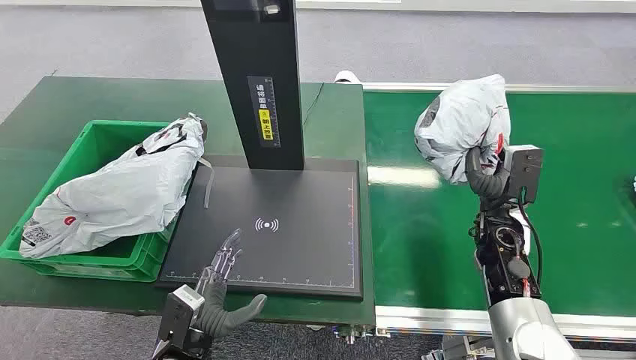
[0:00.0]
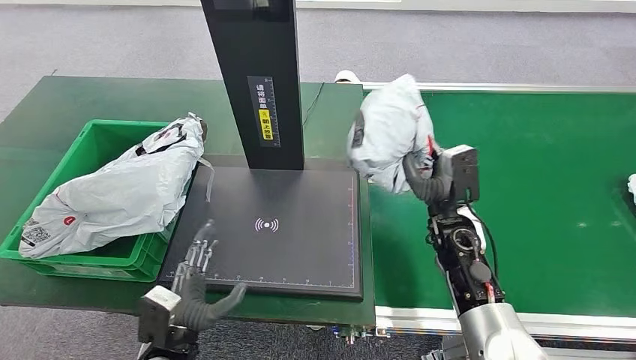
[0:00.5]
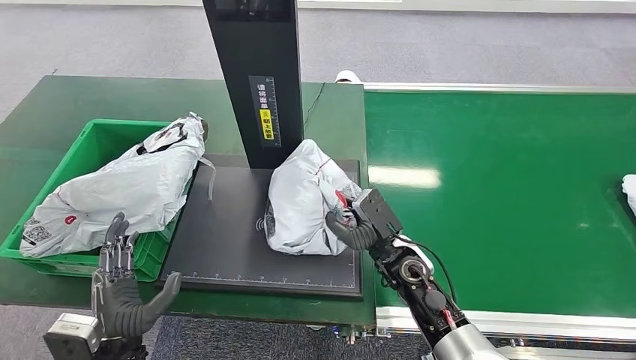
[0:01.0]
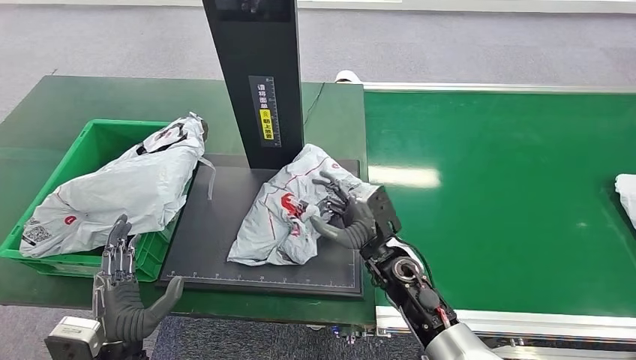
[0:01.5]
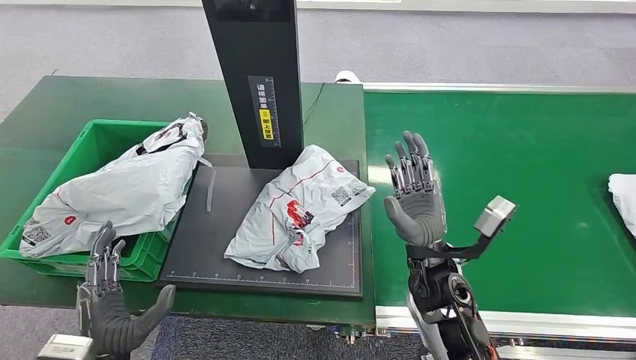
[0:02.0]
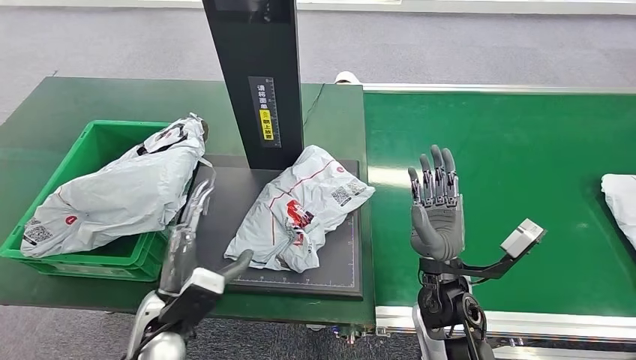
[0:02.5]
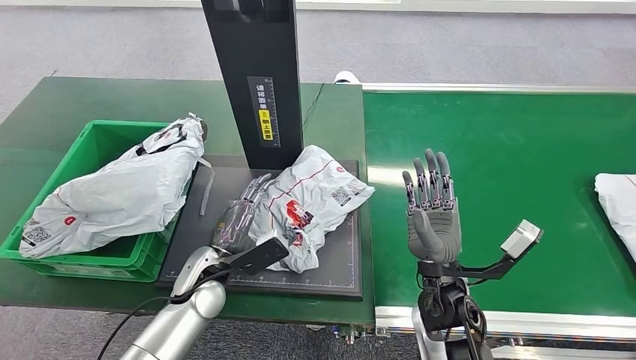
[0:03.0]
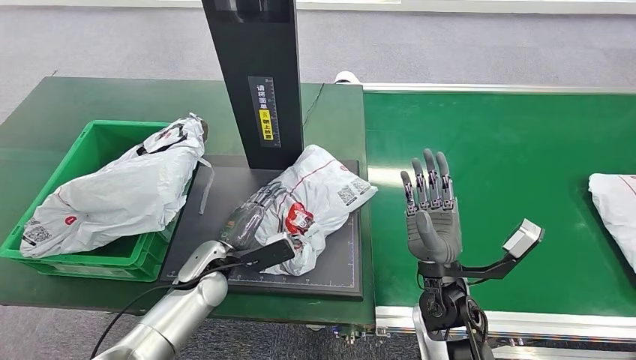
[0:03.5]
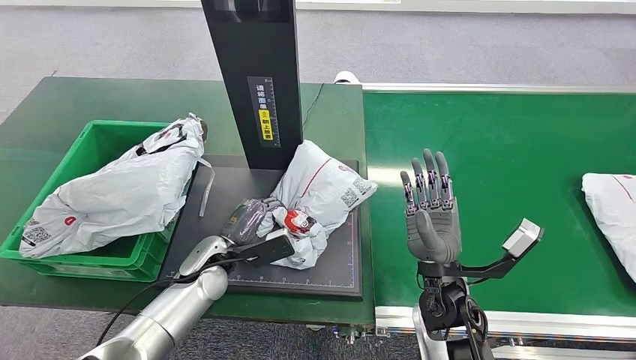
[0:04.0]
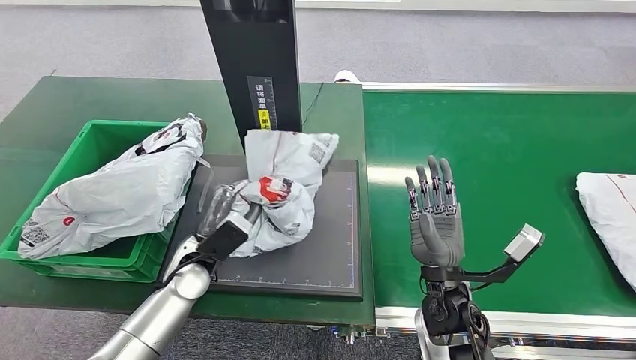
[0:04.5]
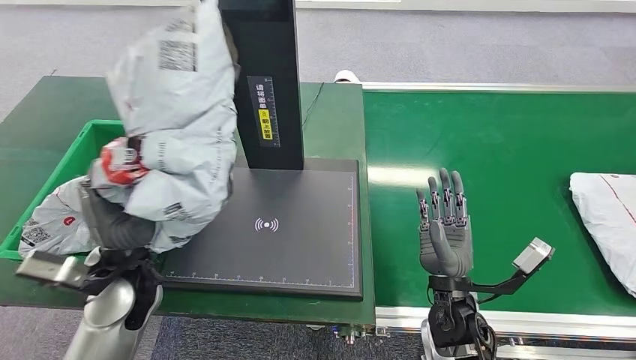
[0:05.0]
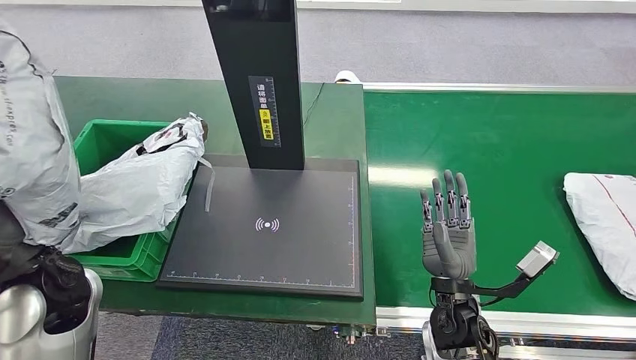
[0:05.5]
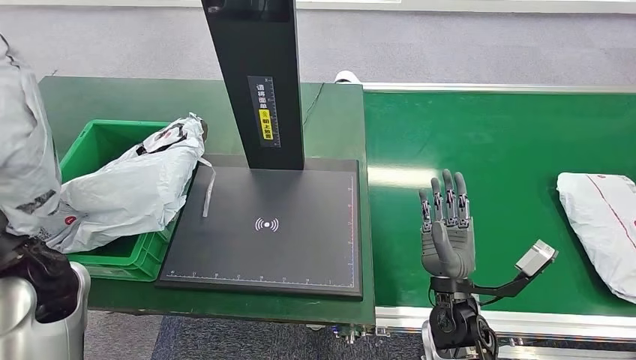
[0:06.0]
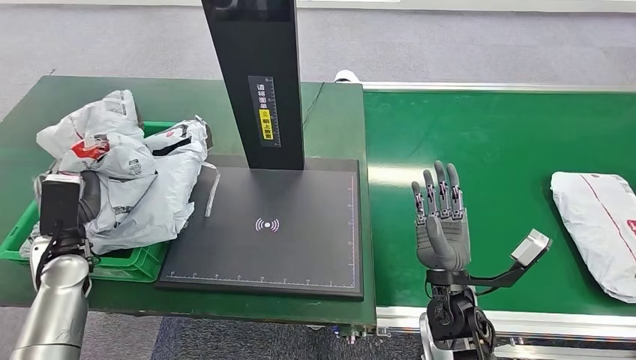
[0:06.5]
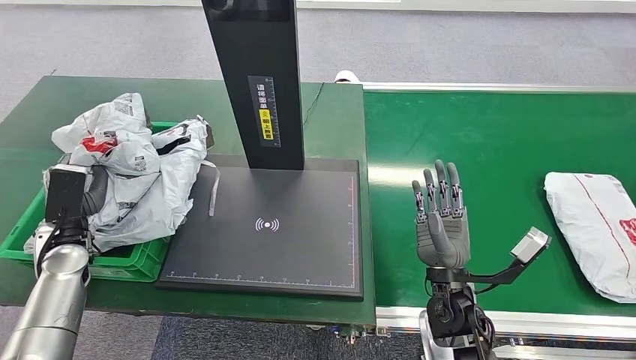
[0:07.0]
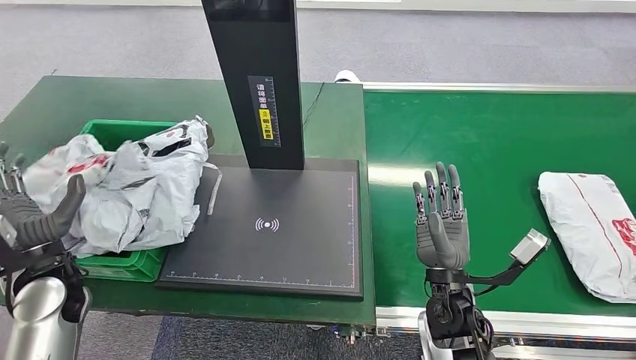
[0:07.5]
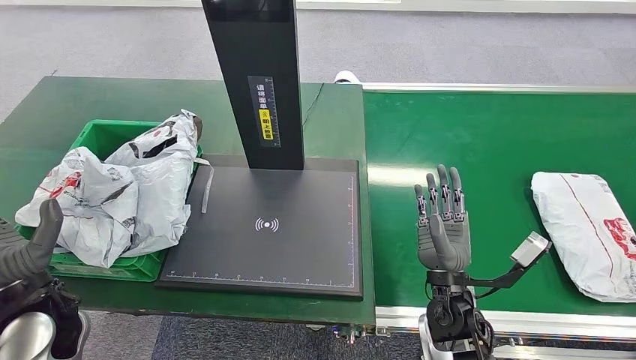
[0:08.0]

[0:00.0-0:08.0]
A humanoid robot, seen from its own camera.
Task of the whole recording: Weigh the package on the weighing device and place it in the left basket.
0:02.0 to 0:04.0: The left hand is displaced forward by approximately 20 cm.
0:06.0 to 0:08.0: The left hand moves downward, about 10 cm.

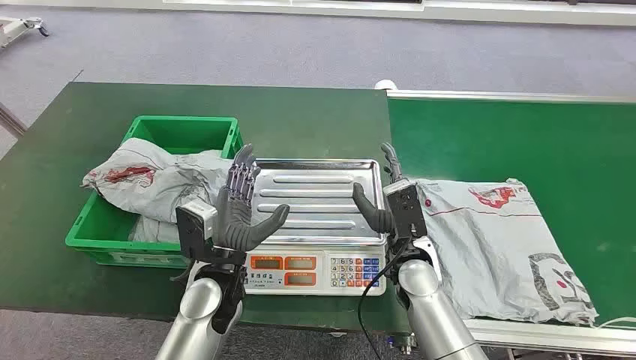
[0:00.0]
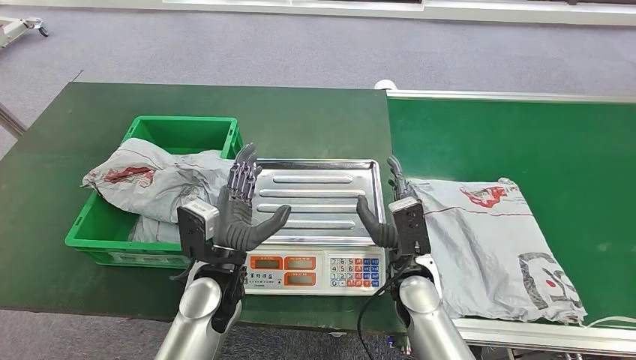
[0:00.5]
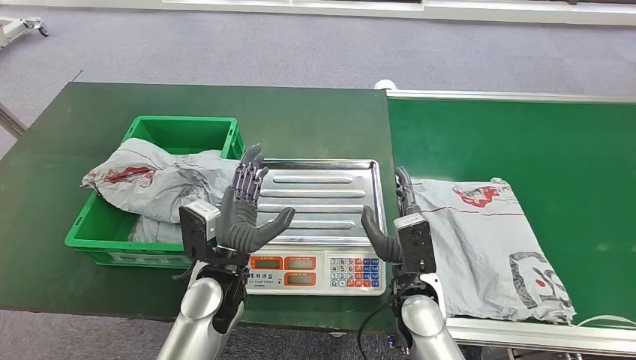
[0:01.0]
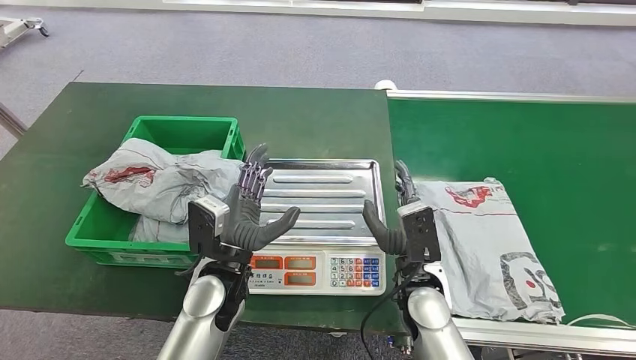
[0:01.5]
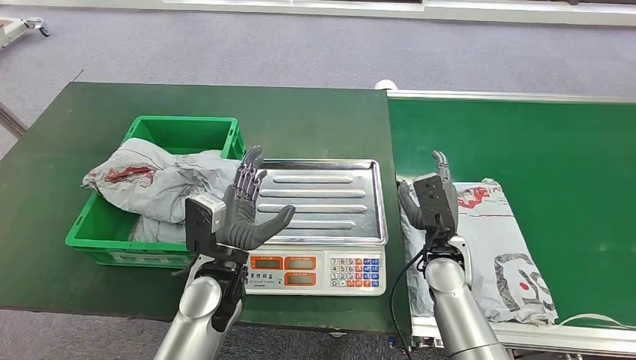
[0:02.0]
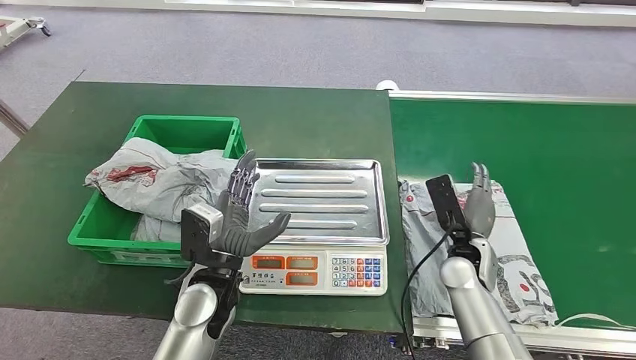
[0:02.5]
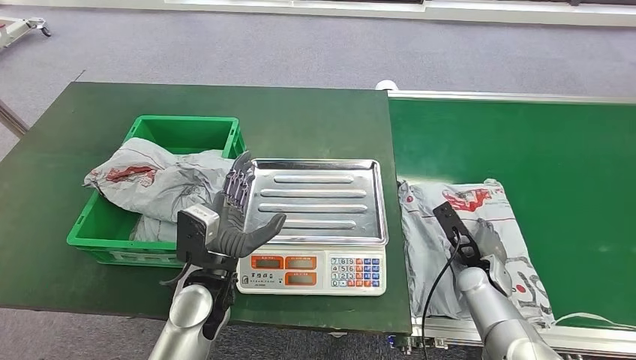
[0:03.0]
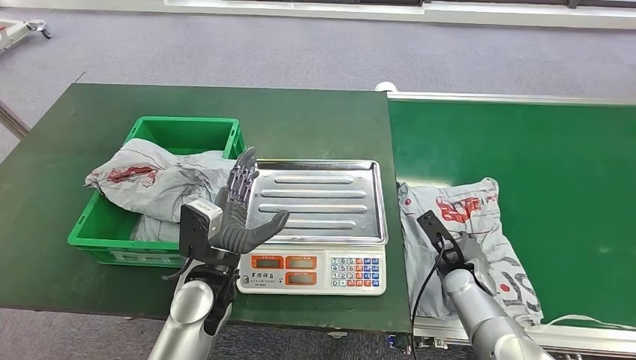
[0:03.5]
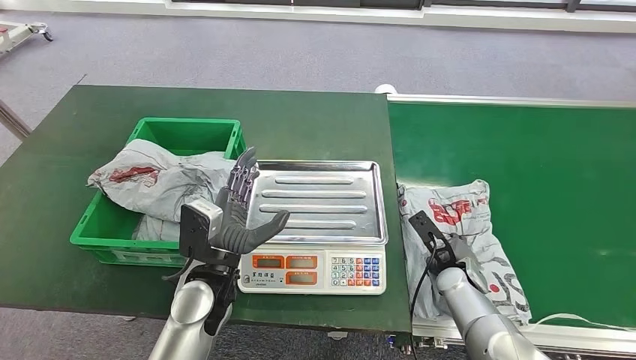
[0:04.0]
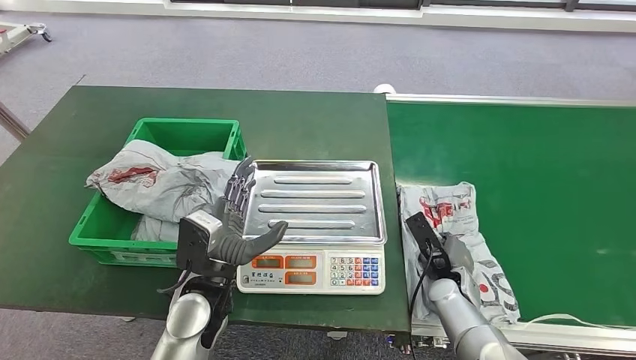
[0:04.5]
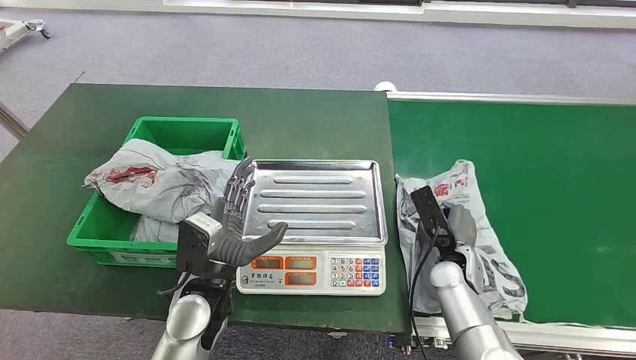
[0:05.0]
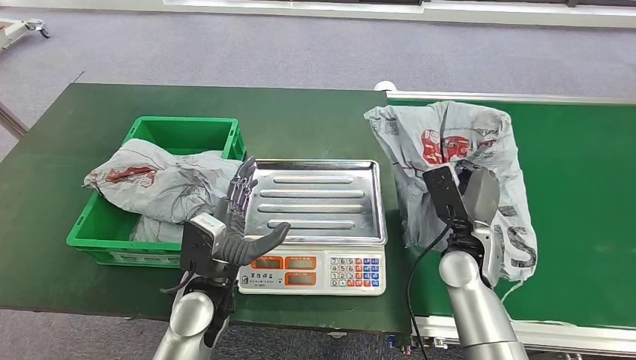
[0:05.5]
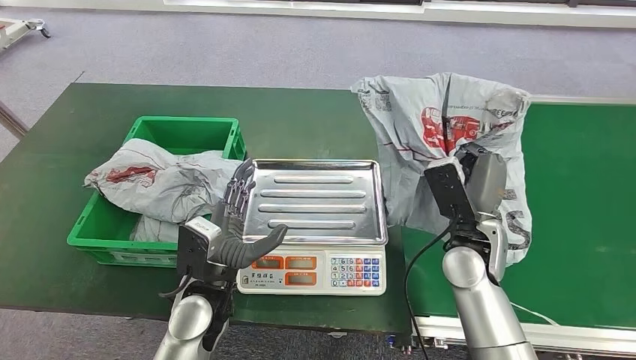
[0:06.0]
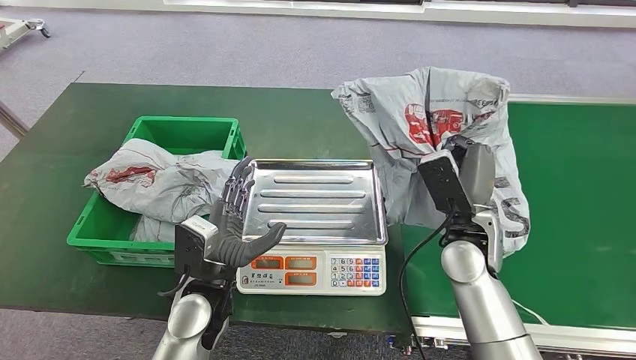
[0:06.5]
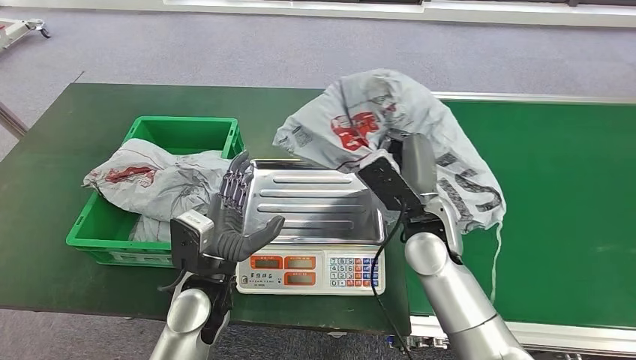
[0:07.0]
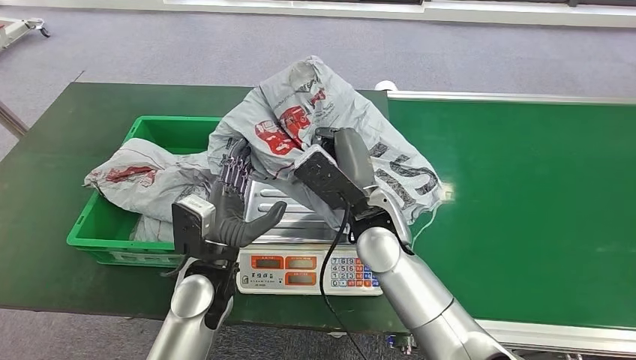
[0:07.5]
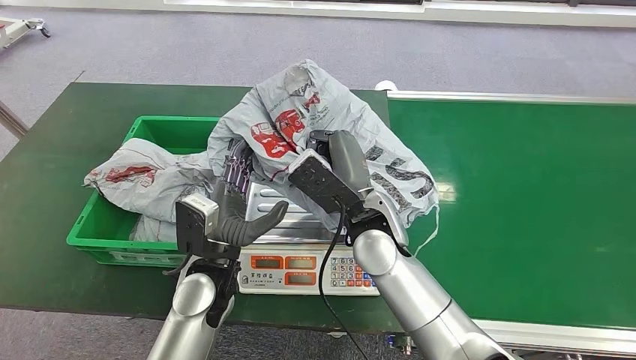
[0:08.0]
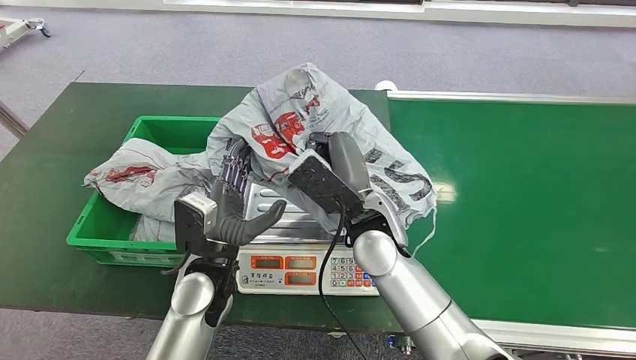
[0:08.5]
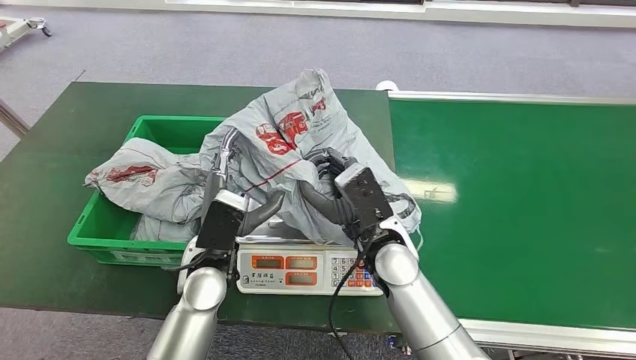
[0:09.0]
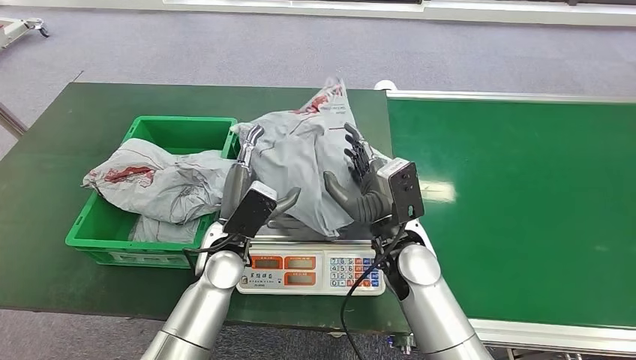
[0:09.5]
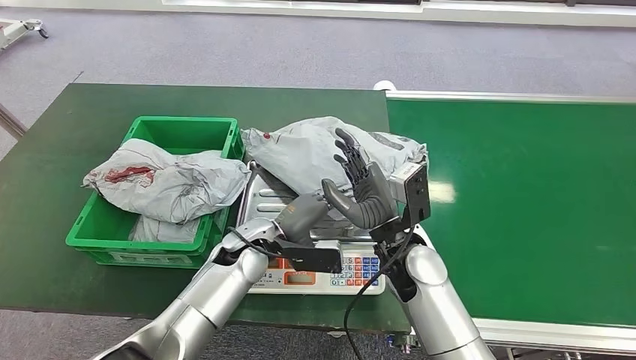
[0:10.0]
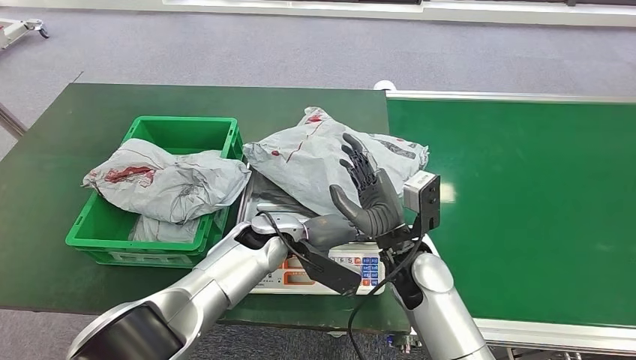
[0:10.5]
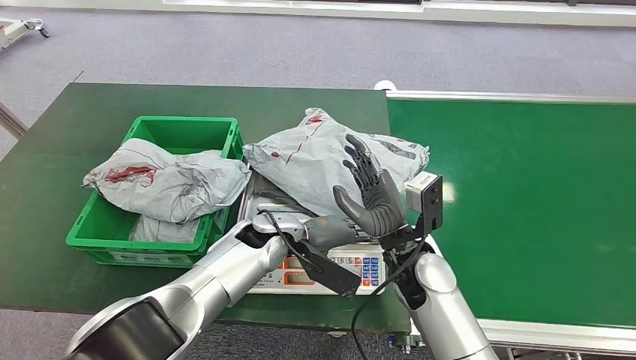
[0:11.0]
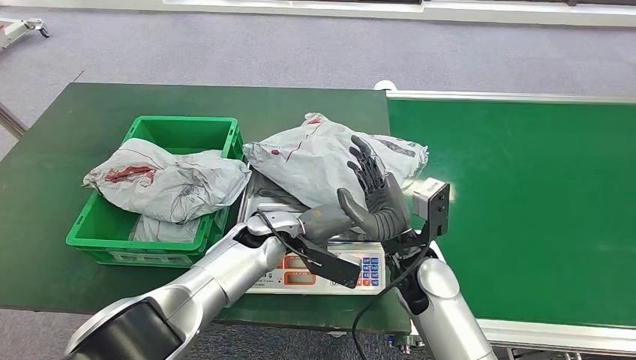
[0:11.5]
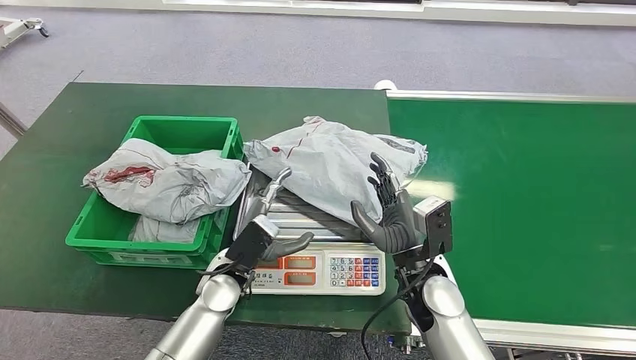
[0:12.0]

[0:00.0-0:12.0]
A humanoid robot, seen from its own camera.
Task of the whole recording: Weigh the package on the weighing device and place it in the left basket.
Step, 0:00.0 to 0:05.5: Pick up the package from the conveyor belt.
0:10.0 to 0:12.0: The left hand goes roughly 5 cm backward, while the right hand changes place by roughly 5 cm.
